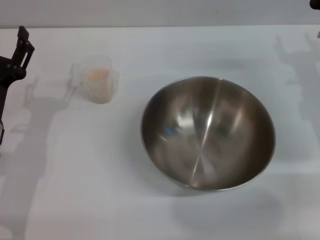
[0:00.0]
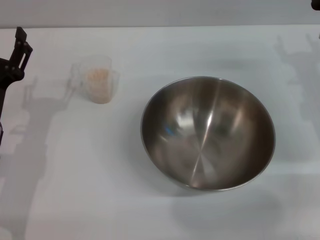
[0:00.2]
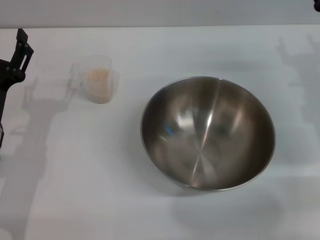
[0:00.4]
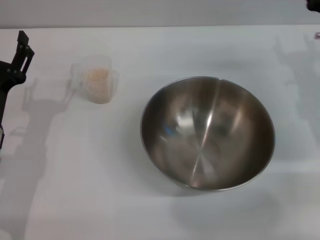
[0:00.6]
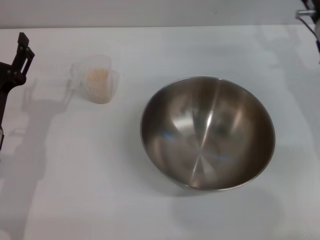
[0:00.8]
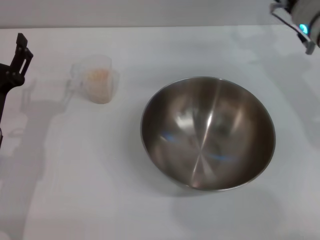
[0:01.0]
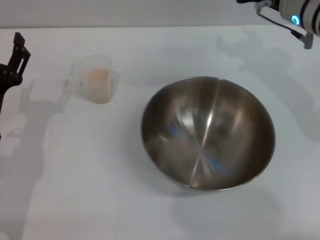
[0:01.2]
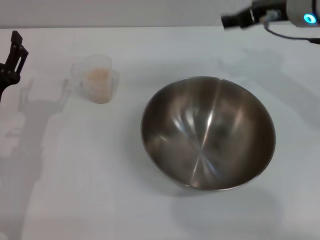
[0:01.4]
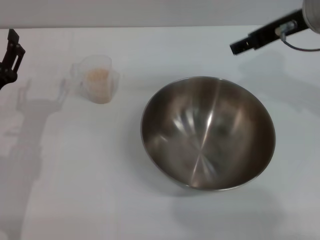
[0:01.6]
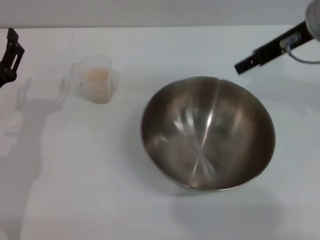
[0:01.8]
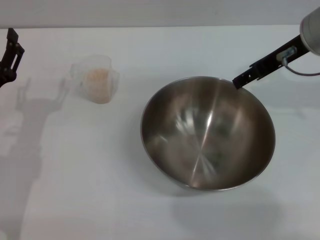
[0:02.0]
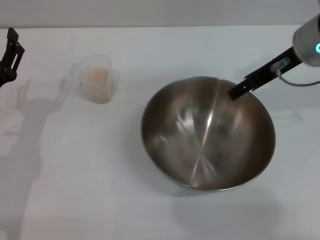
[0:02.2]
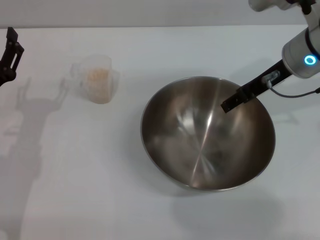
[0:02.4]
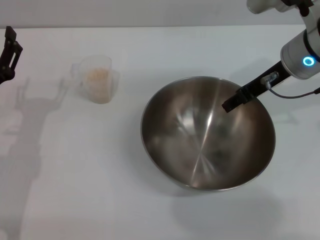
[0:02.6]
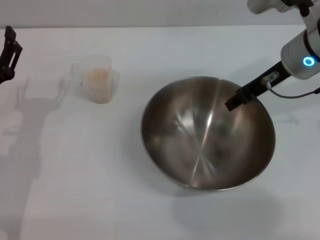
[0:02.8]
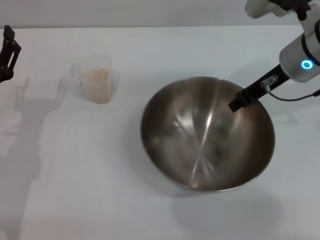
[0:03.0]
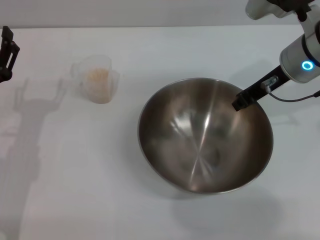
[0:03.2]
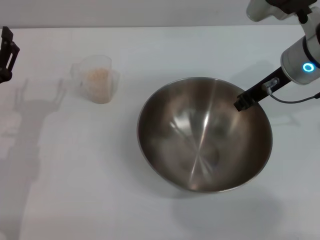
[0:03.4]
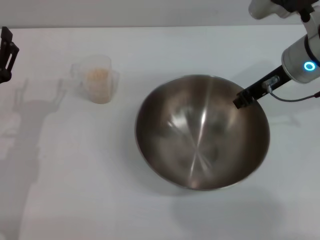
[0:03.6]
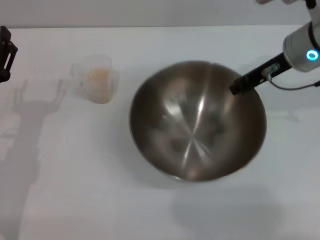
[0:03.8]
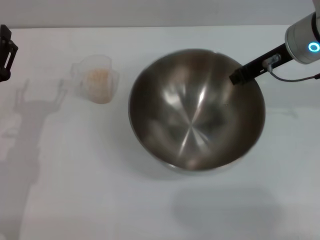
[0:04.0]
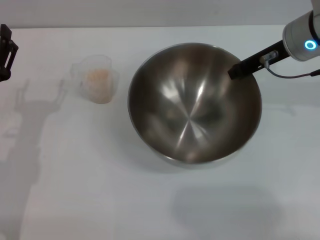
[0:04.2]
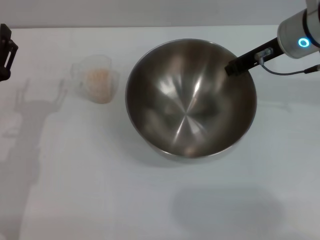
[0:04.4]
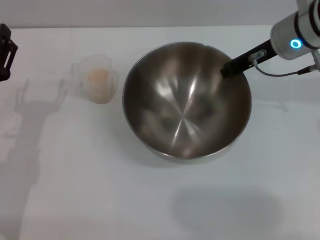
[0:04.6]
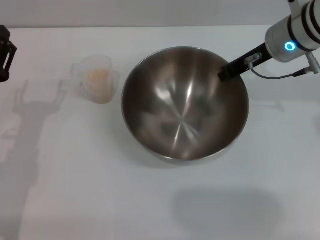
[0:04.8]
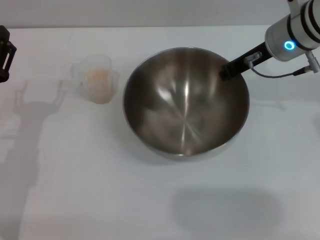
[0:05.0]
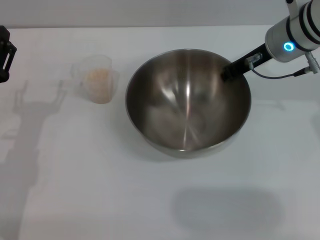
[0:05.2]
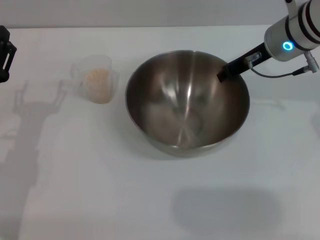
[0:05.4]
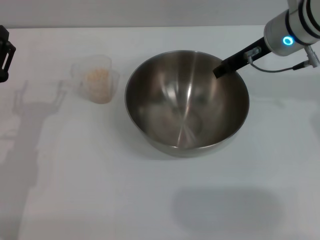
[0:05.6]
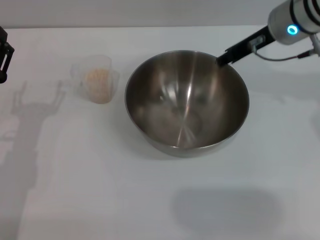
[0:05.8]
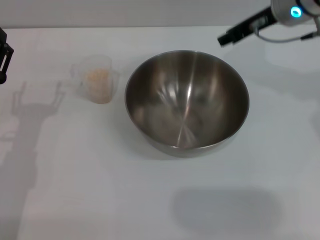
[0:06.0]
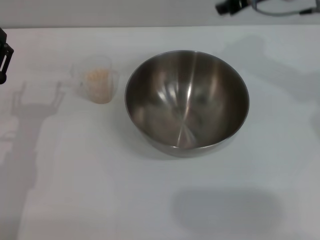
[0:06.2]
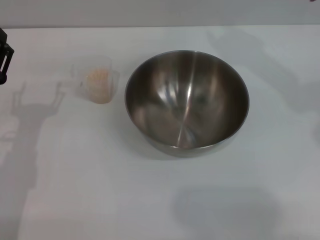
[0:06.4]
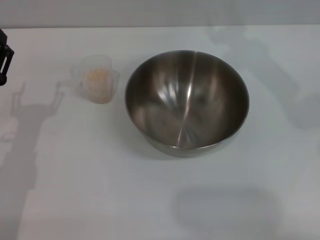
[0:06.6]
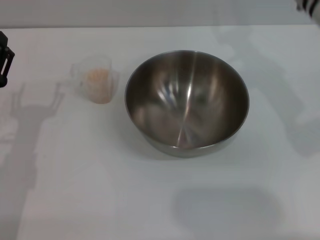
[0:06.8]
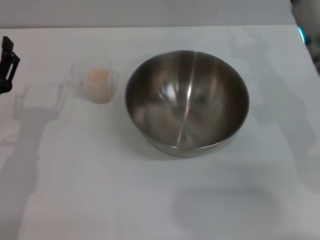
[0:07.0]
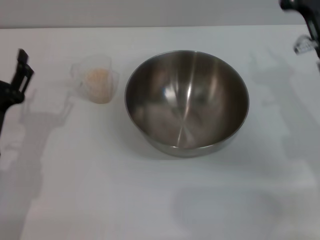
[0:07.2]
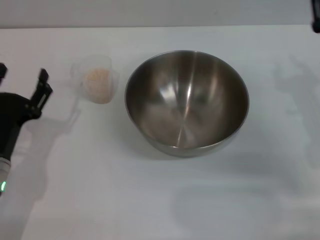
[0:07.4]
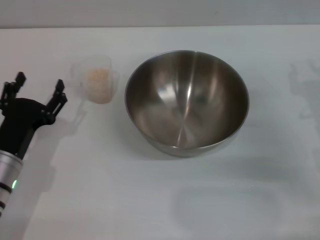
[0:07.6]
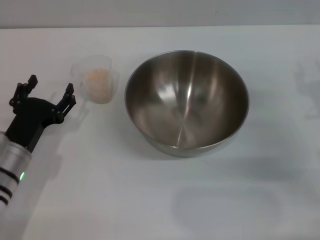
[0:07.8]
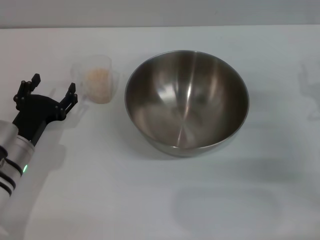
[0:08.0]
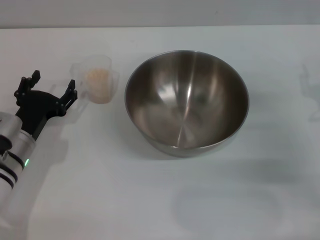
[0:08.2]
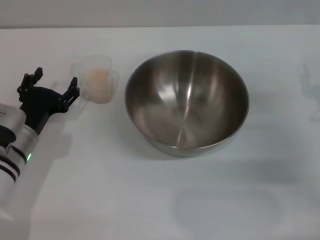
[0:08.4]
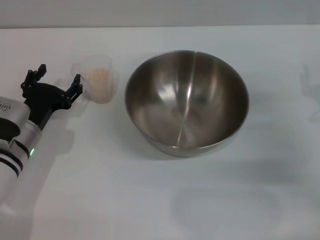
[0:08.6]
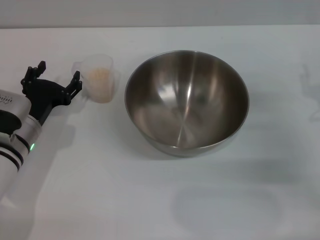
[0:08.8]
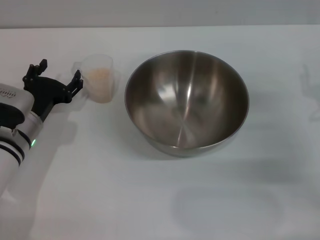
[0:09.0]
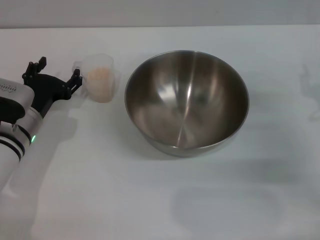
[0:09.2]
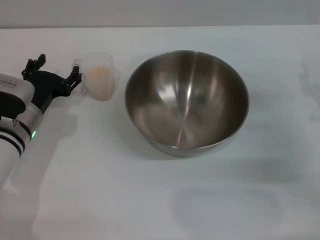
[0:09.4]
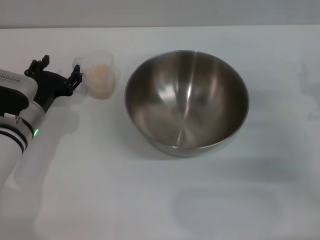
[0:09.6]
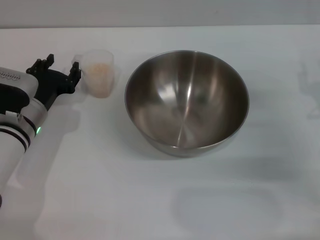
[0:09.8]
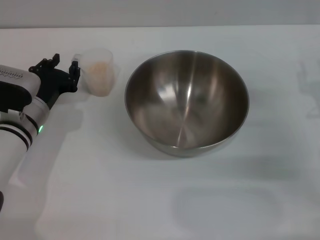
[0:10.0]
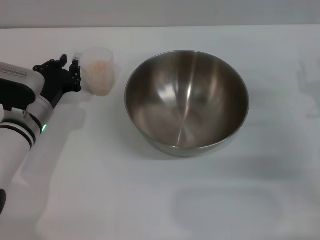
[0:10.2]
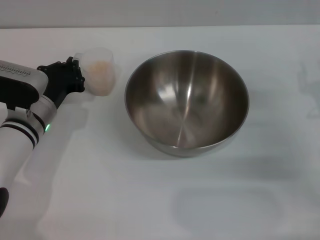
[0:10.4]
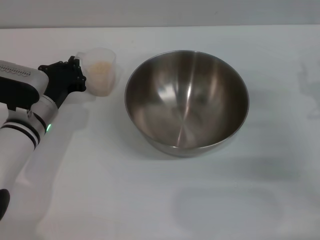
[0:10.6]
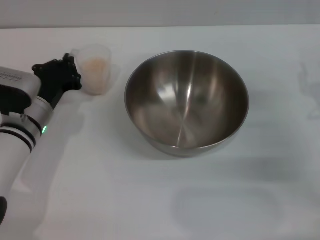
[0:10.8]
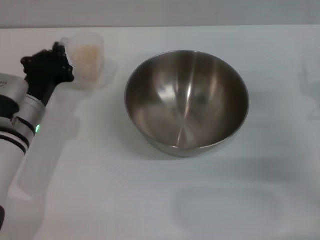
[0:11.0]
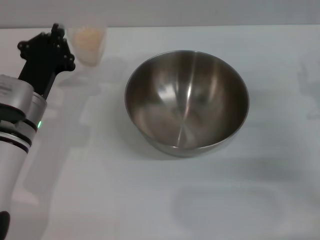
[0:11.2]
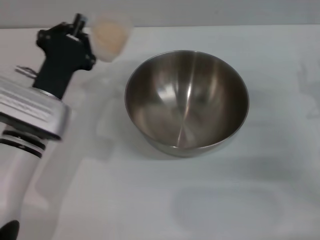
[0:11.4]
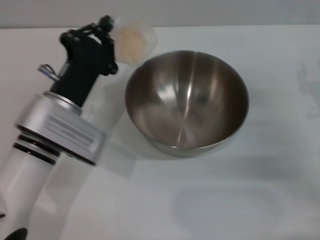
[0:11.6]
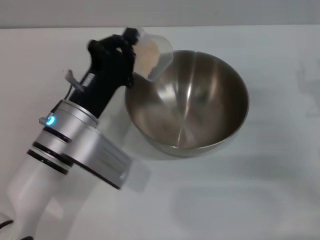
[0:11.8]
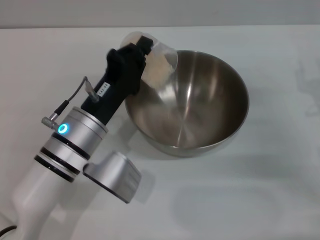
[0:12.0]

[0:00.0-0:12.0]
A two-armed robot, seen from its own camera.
Task of the whole recording: Place the bowl in the middle of the table with one hand and pour the rice from the grain cup into it with the other hand.
Step, 0:00.0 to 0:03.8: Pick up the bowl with the right gripper.
Step, 0:04.0 to 0:05.8: Place the bowl in the center of view with the right gripper.
Step, 0:06.0 to 0:10.8: Pick up the cup with rice in it with the left gripper.
0:00.0 to 0:01.6: The right gripper is displaced upward and to the left by roughly 15 cm.
0:01.6 to 0:03.0: The right gripper travels downward by roughly 5 cm, and closes its fingers.
0:03.0 to 0:04.4: The right gripper closes up.
0:04.4 to 0:06.0: The right gripper opens its fingers.
0:06.0 to 0:07.6: The right gripper moves downward, backward and to the right, about 20 cm.
0:07.6 to 0:09.0: The left gripper heads forward, covering roughly 10 cm.
0:09.0 to 0:10.4: The left gripper closes its fingers.
0:10.4 to 0:12.0: The left gripper moves to the right and backward, approximately 10 cm.

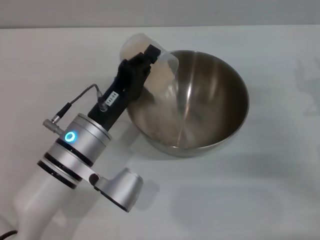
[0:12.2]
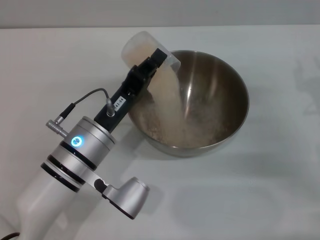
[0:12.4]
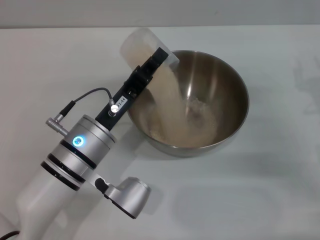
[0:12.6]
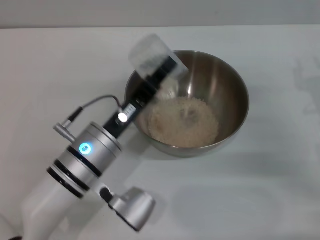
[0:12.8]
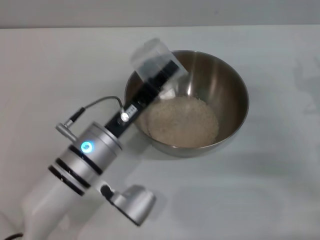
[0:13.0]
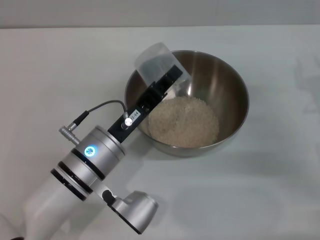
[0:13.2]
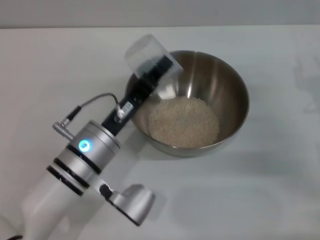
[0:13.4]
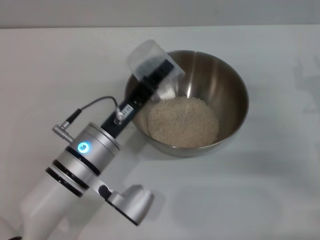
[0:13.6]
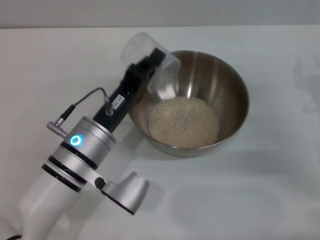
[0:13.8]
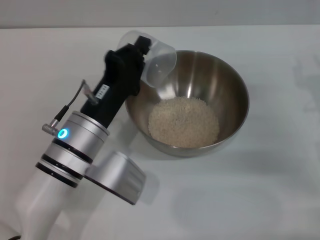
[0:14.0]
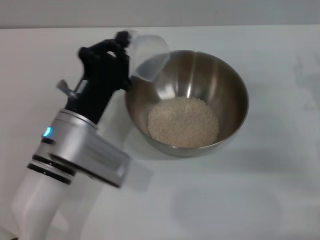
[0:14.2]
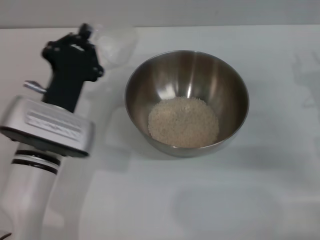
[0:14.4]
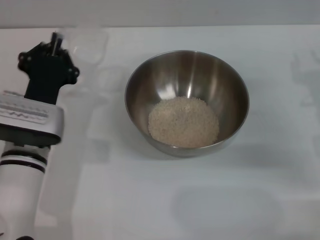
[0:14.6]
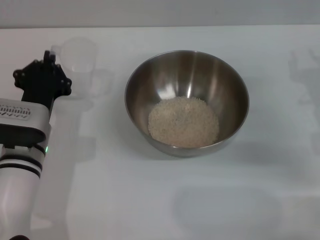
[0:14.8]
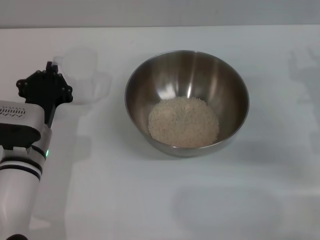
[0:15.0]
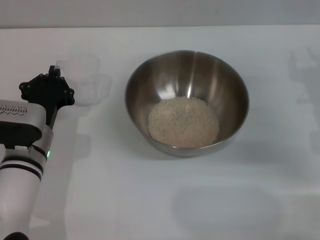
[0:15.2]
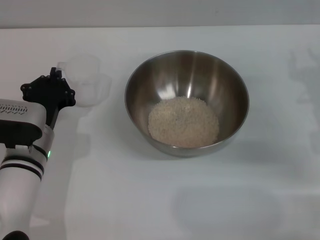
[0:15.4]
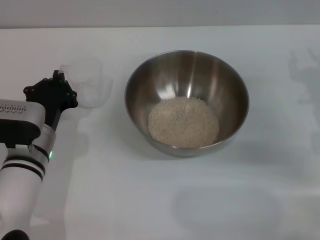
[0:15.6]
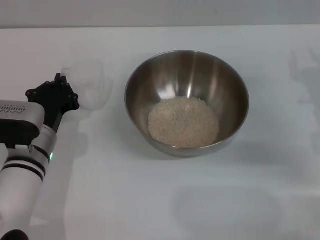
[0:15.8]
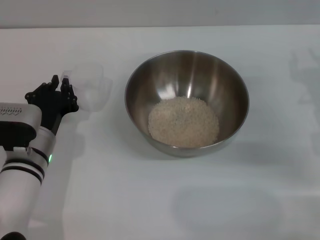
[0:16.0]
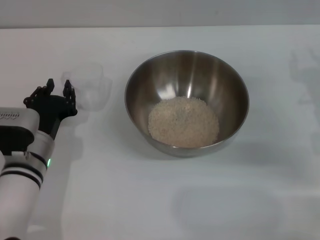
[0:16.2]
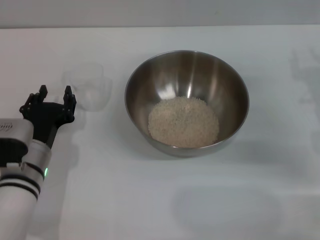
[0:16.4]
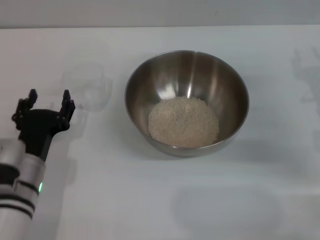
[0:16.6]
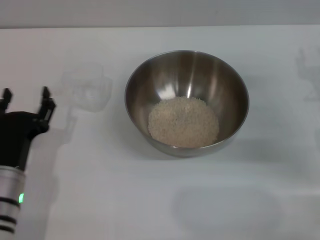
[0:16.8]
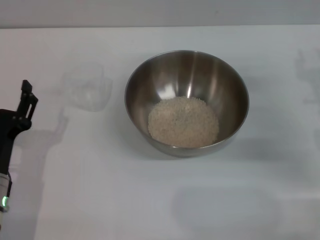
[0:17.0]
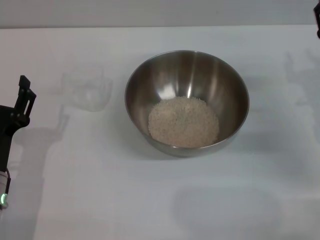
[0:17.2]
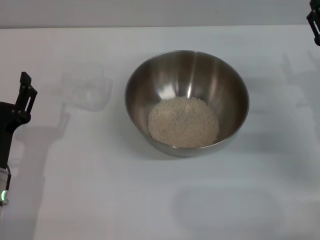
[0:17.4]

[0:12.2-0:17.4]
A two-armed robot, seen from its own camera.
Task of the whole recording: Place the bowl in the middle of the table with one hand and pour the rice from the grain cup into it with the other hand.
Step, 0:13.2 to 0:16.4: Place the cup on the table with the left gripper.
0:12.2 to 0:14.0: The grippers stay close to where they were, moving slightly.
0:14.0 to 0:15.6: The left gripper is displaced to the left by approximately 5 cm.
0:15.6 to 0:17.4: The left gripper moves backward, some 10 cm, and opens up.
